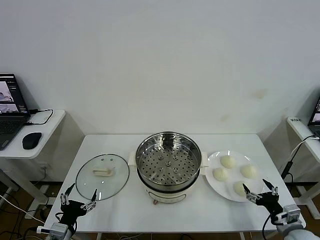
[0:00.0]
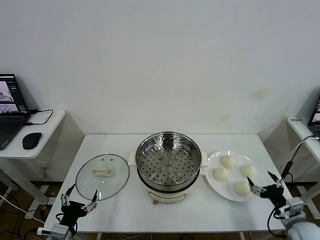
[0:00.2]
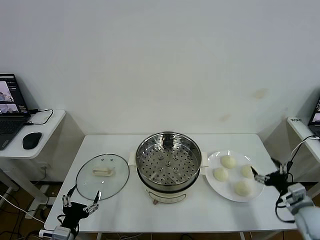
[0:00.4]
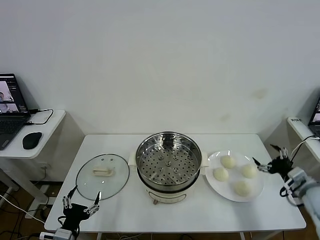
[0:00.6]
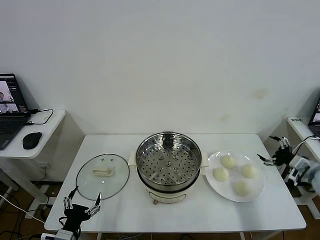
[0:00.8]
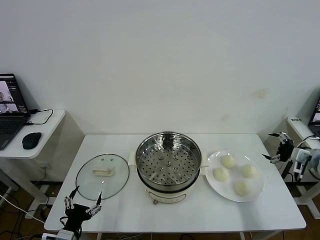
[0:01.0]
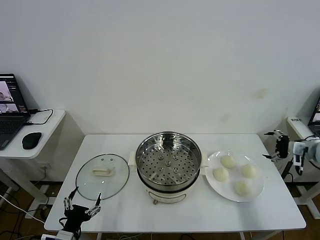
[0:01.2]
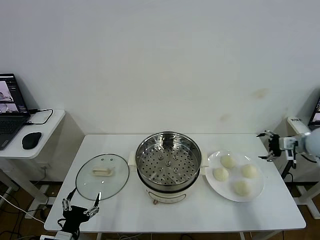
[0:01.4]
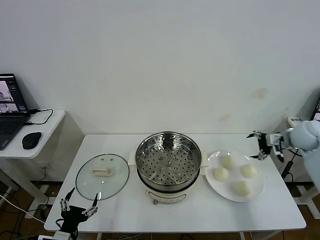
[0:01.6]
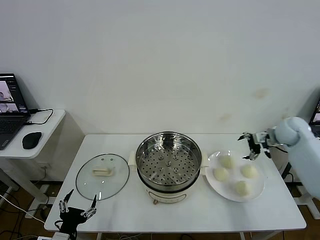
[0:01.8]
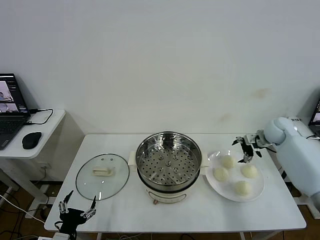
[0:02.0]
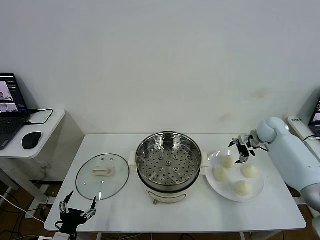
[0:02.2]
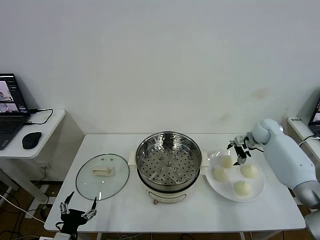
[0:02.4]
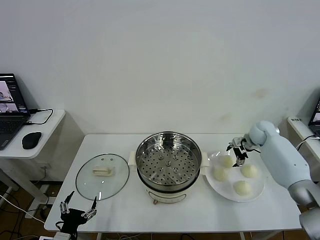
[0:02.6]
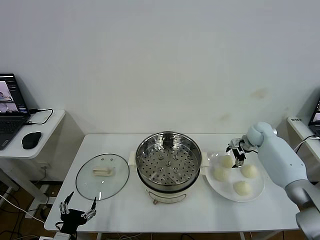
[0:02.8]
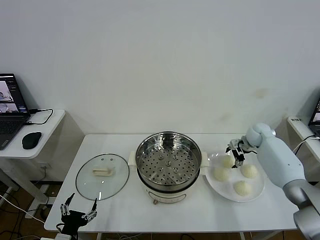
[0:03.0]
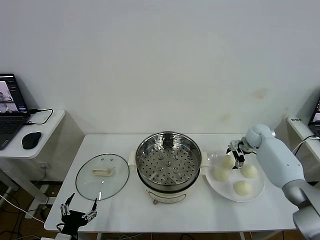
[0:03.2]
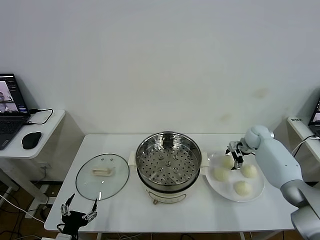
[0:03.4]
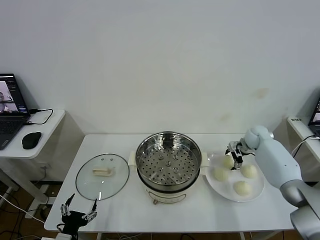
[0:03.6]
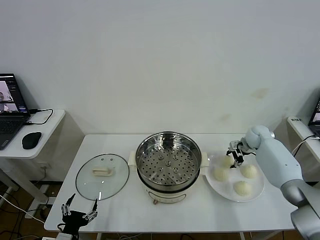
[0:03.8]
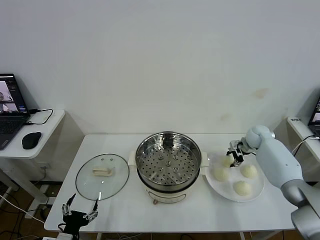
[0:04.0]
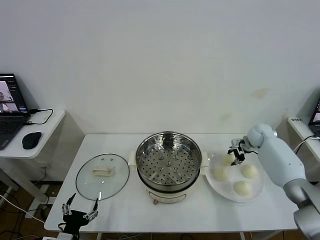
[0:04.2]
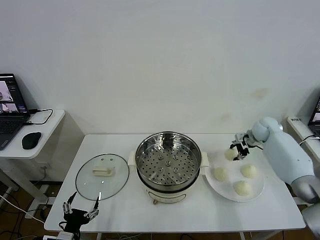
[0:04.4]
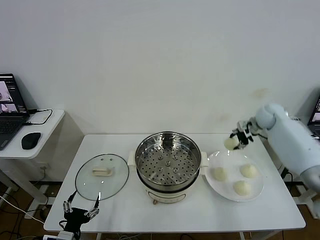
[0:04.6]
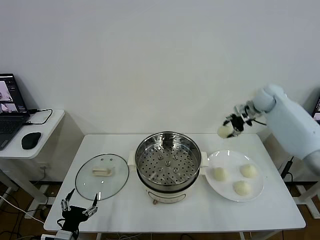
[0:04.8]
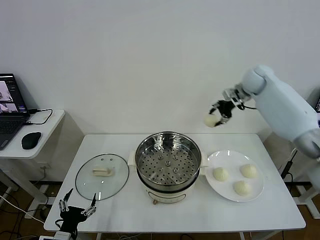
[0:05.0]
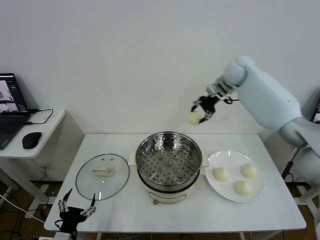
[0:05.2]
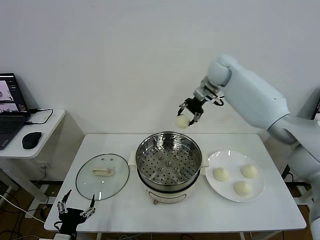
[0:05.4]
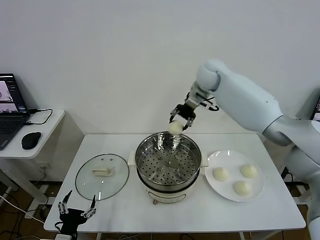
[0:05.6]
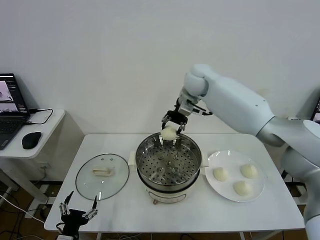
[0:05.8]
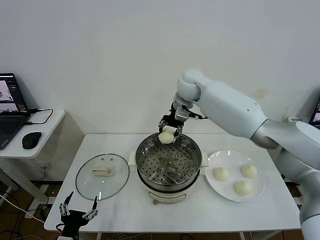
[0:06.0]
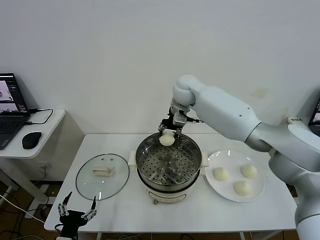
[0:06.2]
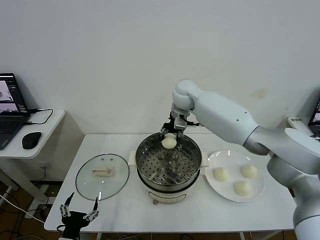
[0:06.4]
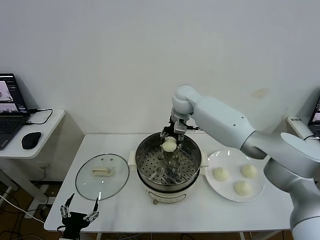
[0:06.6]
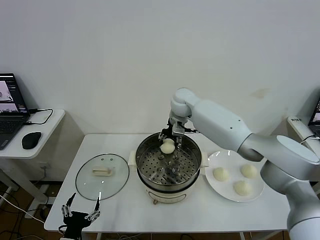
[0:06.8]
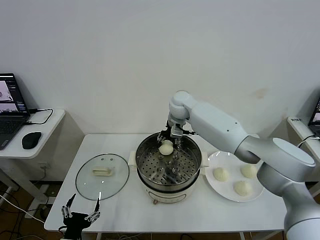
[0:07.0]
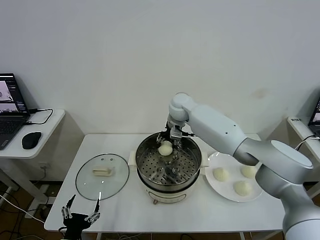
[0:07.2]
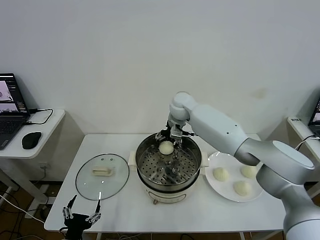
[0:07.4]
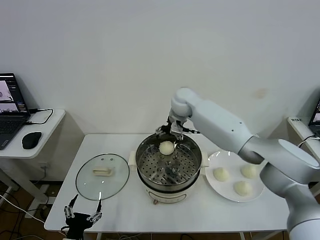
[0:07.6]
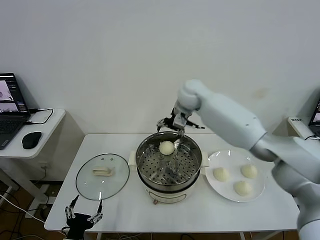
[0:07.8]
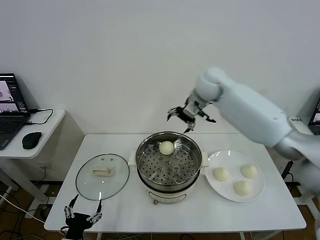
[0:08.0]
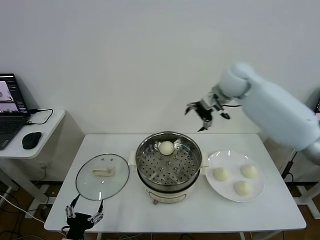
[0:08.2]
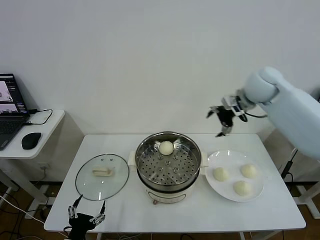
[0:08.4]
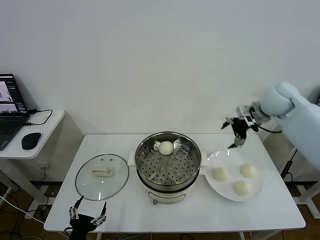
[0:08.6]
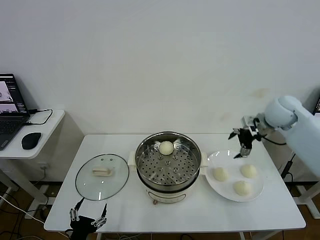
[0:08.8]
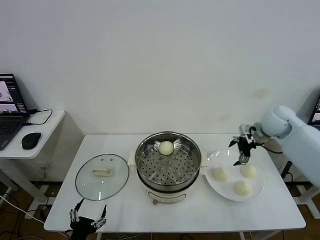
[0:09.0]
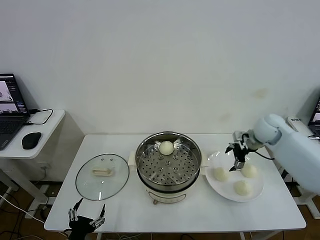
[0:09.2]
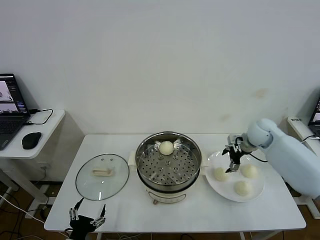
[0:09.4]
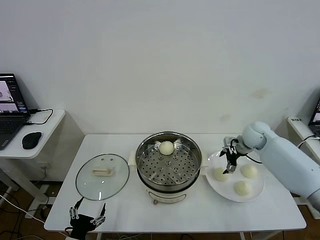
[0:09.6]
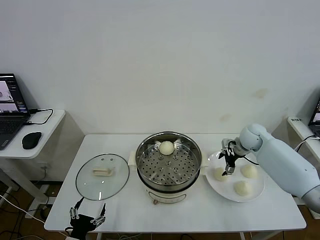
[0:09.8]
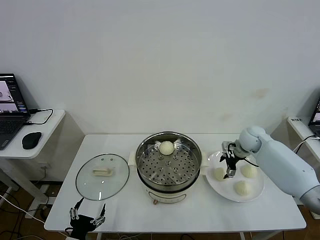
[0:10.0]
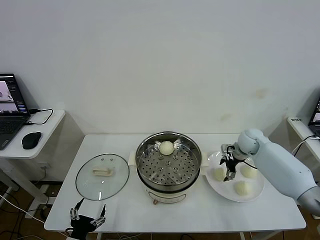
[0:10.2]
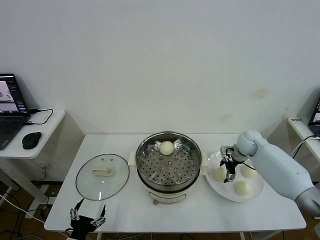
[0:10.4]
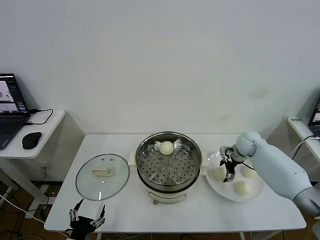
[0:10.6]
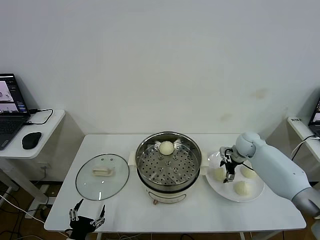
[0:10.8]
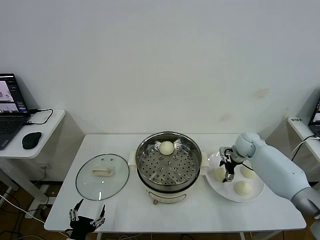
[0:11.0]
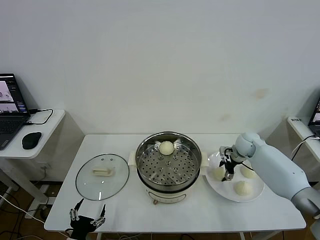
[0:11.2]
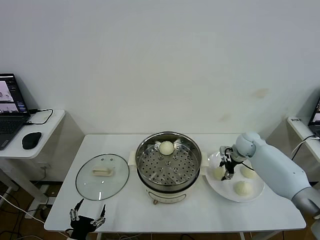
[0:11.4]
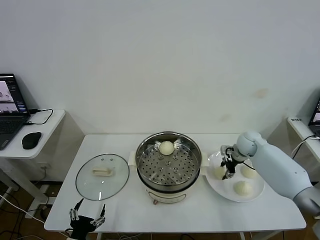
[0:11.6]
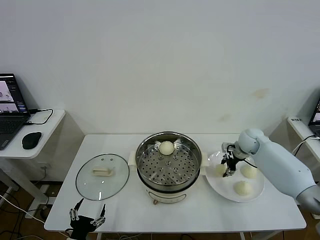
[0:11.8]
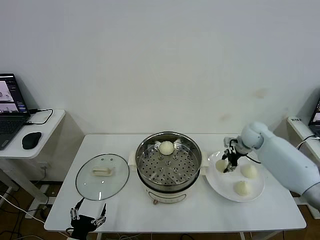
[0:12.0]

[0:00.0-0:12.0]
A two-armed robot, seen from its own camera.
Step, 0:00.0 to 0:03.8: Grasp the baozi in the plate with right gripper.
Step, 0:04.0 to 0:07.4: Place the baozi on the steamer with right gripper.
Step, 0:07.6 to 0:11.4: Grasp the baozi in the plate with right gripper.
0:01.6 to 0:03.0: The right gripper goes roughly 15 cm downward, forward and to the left.
0:03.0 to 0:04.4: The right gripper shifts some 5 cm upward, and closes up.
0:04.4 to 0:06.0: The right gripper moves to the left and upward, about 35 cm.
0:06.0 to 0:07.6: The right gripper opens up.
0:07.6 to 0:09.0: The right gripper is displaced to the right by some 30 cm.
0:09.0 to 0:10.4: The right gripper shifts roughly 15 cm downward.
0:10.4 to 0:12.0: The right gripper is displaced upward by roughly 5 cm, and closes its fingers.

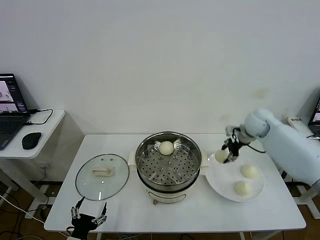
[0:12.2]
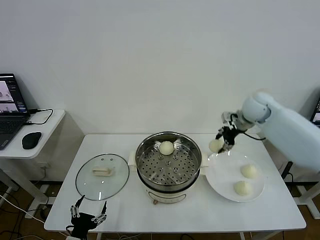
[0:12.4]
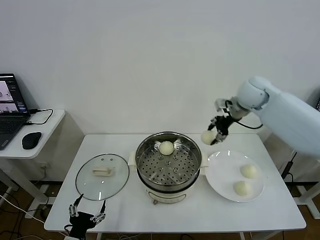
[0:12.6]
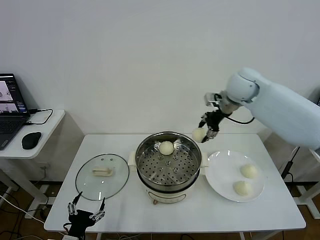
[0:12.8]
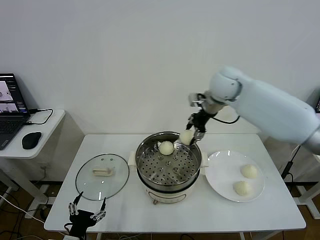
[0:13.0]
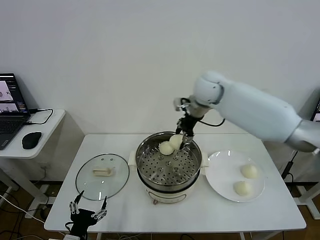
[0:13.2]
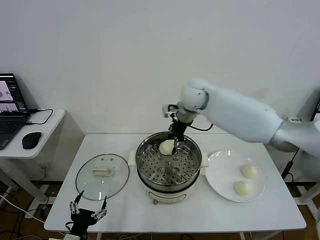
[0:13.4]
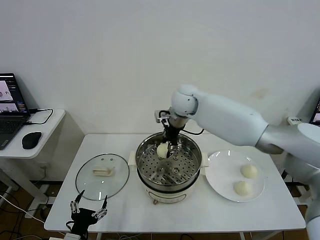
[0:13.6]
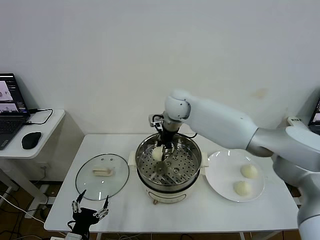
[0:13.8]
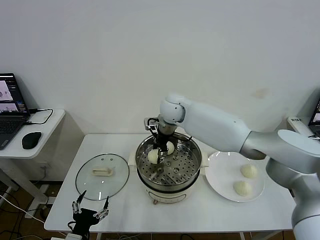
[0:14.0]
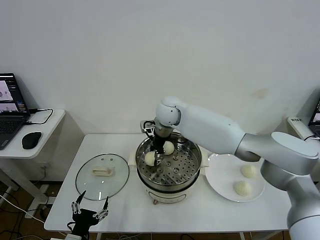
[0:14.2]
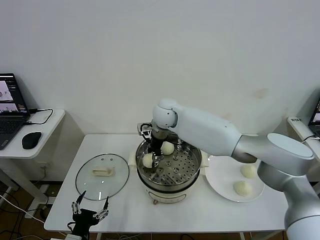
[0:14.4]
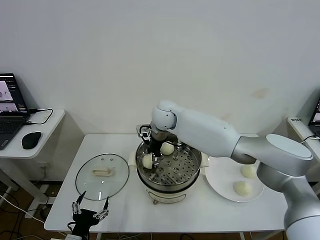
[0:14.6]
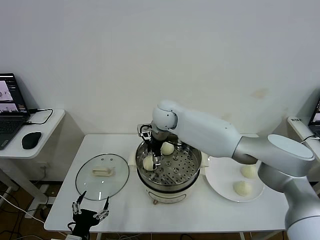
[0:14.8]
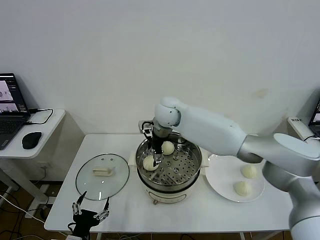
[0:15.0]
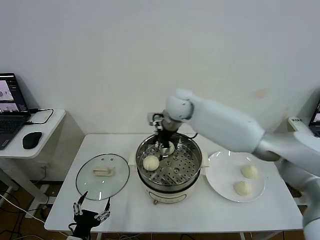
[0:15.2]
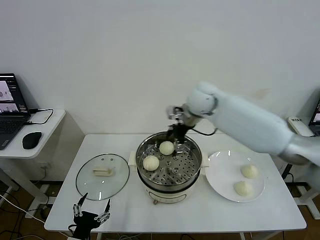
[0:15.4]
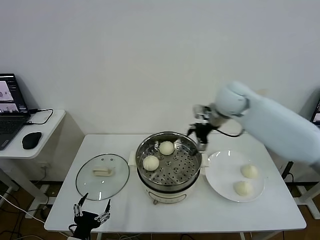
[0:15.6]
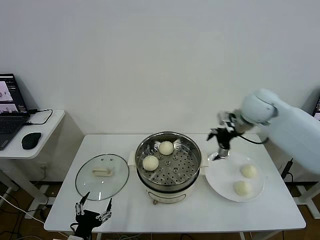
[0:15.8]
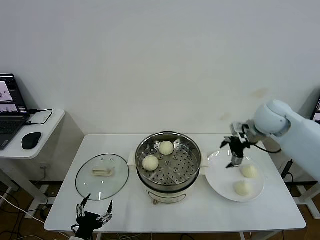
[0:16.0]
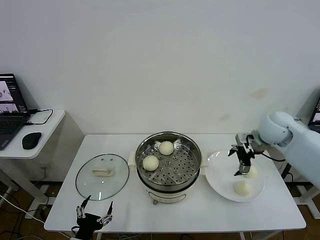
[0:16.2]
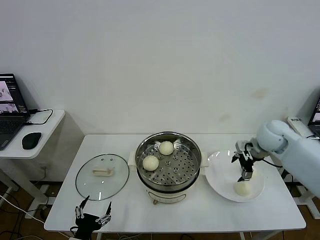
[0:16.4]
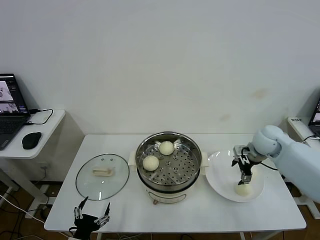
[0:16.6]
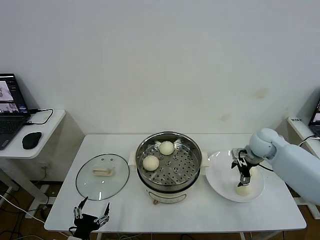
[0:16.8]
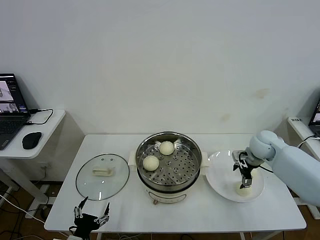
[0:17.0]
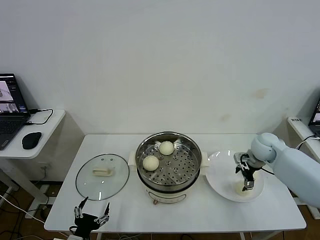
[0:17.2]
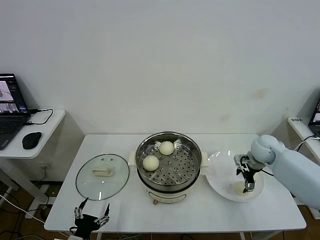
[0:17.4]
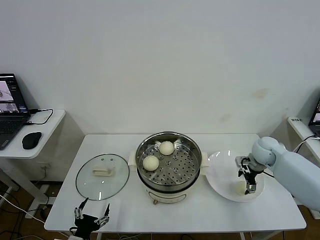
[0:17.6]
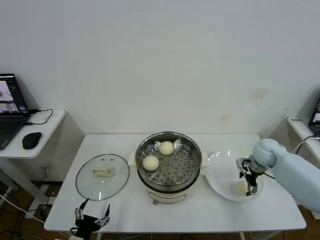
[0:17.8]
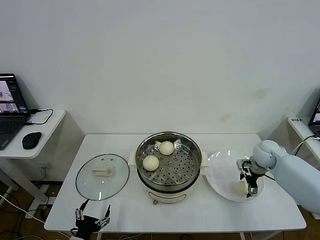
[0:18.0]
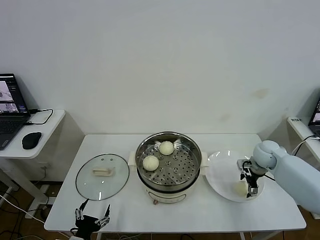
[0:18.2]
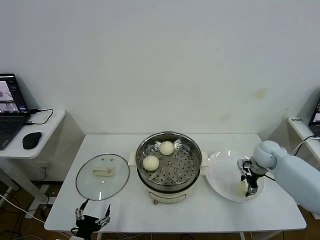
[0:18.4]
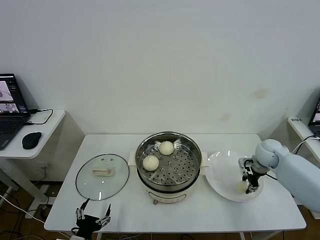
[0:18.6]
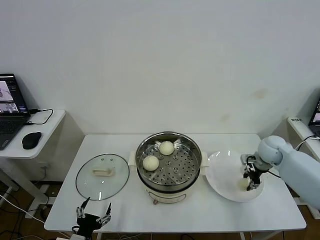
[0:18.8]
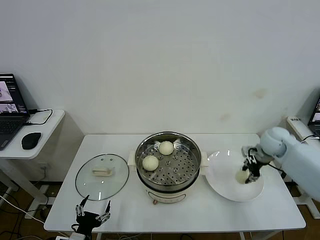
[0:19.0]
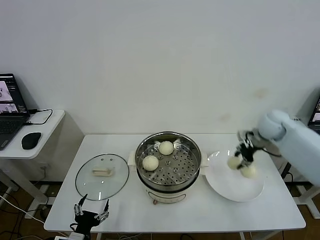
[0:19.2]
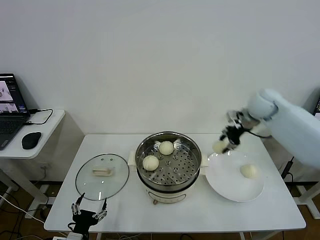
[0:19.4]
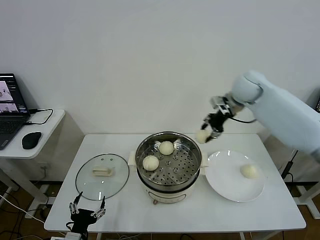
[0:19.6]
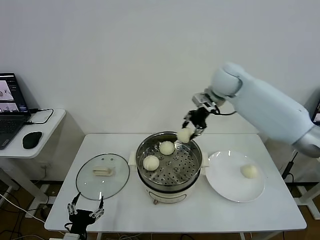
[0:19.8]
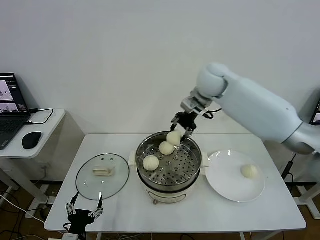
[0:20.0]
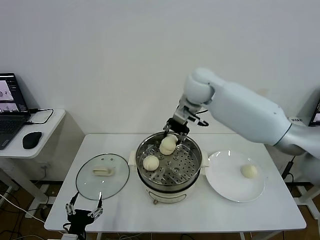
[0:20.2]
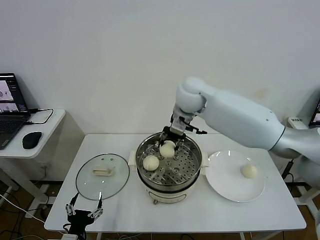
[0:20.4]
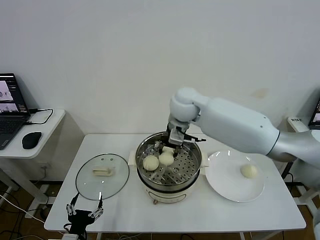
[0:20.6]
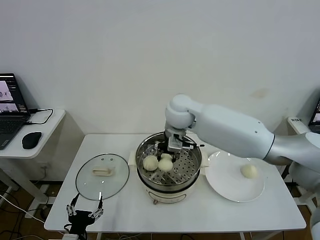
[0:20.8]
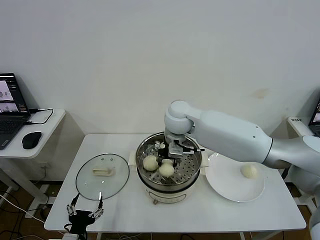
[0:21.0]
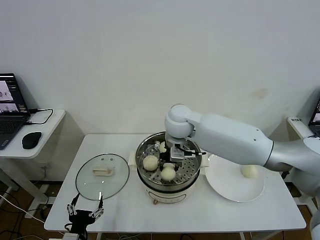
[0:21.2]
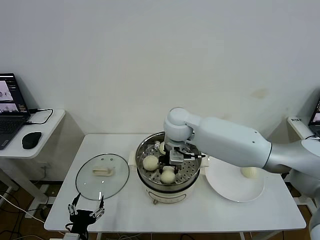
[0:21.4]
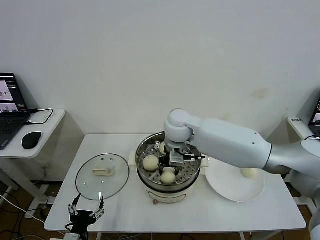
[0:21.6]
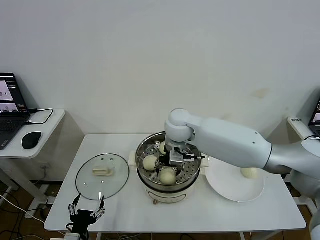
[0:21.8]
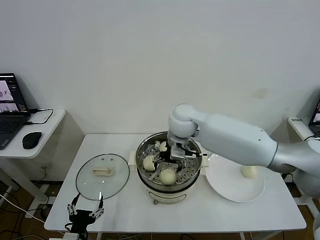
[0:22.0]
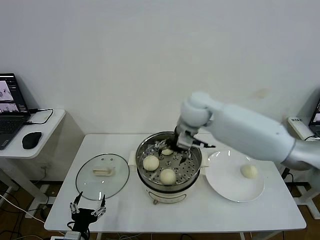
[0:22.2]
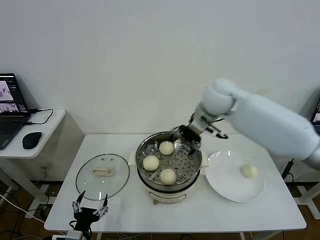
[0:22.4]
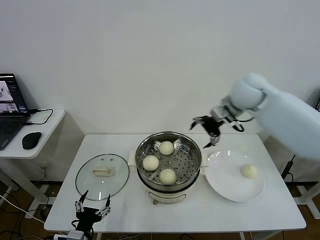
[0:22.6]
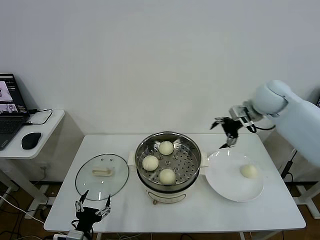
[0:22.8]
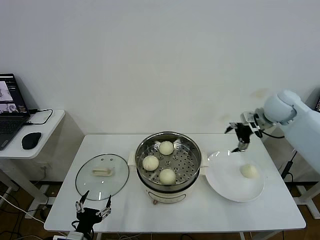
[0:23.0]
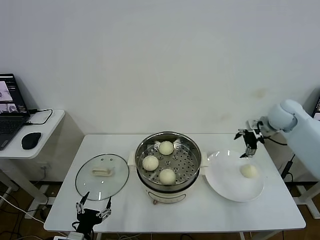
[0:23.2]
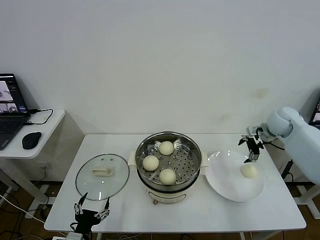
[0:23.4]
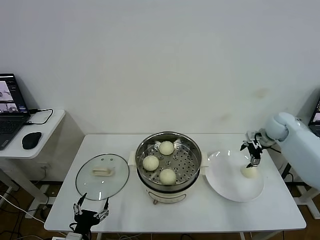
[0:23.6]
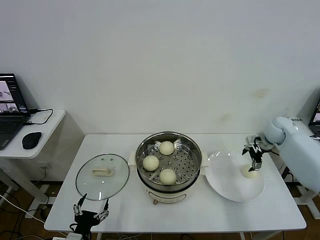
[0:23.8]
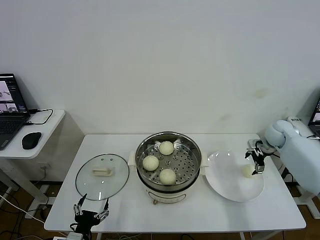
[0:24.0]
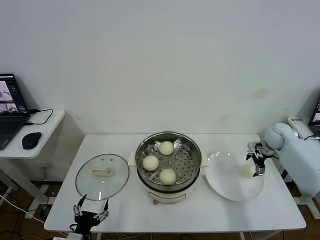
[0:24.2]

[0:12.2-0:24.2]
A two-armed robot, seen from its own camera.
Step, 0:12.2 to 0:14.6: Place the baozi on the steamer with right gripper.
Step, 0:14.8 to 0:18.6: Grasp the baozi in the plate with right gripper.
Step, 0:18.8 to 0:21.8: Place the baozi on the steamer with right gripper.
0:12.2 to 0:13.8: The right gripper moves to the left, approximately 30 cm.
0:13.8 to 0:15.2: The right gripper opens up.
0:15.2 to 0:16.6: The right gripper is displaced to the right and downward by roughly 30 cm.
0:16.6 to 0:18.2: The right gripper goes about 10 cm downward.
0:18.2 to 0:19.8: The right gripper shifts about 30 cm upward and to the left, and closes its fingers.
0:19.8 to 0:21.2: The right gripper heads to the left, downward and backward, covering roughly 20 cm.
0:21.2 to 0:22.6: The right gripper goes approximately 20 cm to the right and upward, and opens.
0:22.6 to 0:24.2: The right gripper goes some 30 cm downward and to the right.
